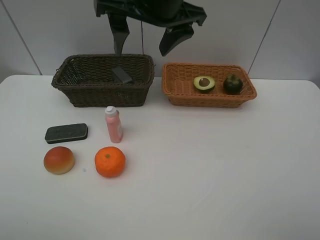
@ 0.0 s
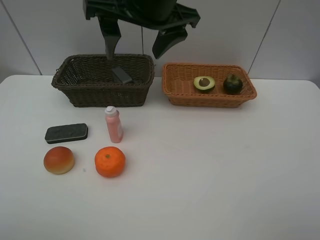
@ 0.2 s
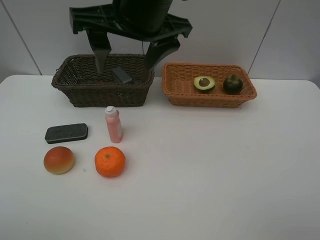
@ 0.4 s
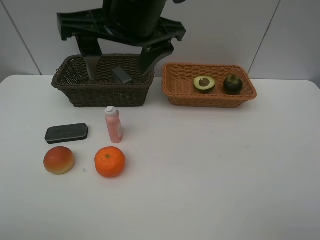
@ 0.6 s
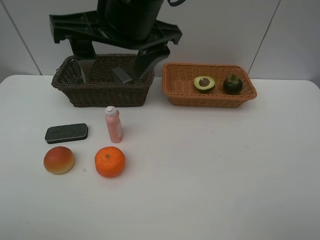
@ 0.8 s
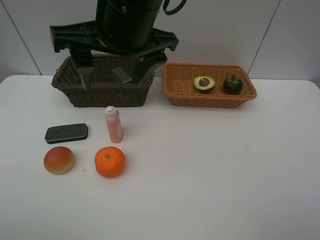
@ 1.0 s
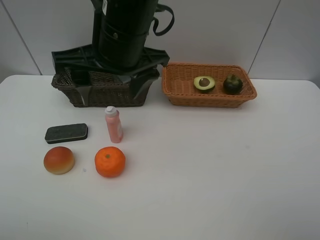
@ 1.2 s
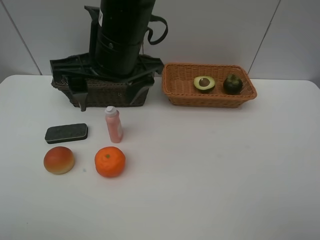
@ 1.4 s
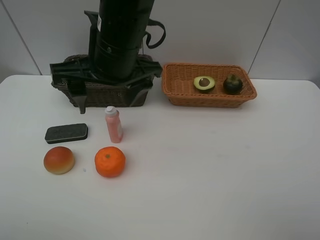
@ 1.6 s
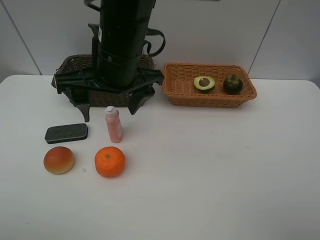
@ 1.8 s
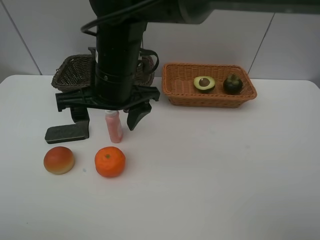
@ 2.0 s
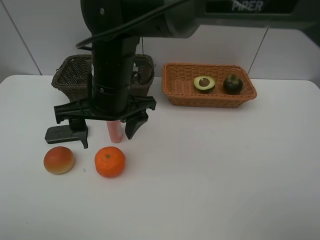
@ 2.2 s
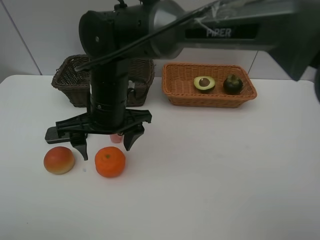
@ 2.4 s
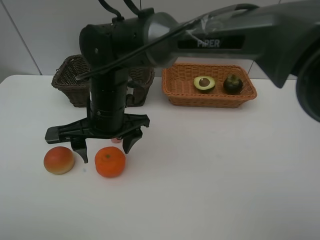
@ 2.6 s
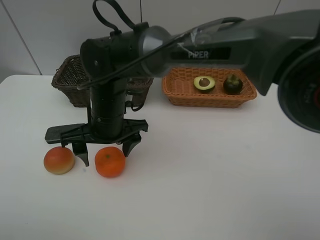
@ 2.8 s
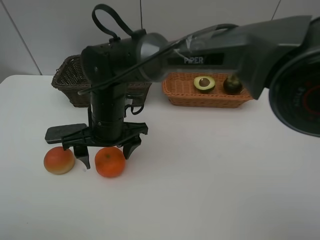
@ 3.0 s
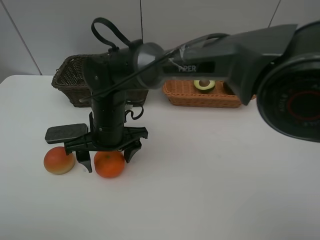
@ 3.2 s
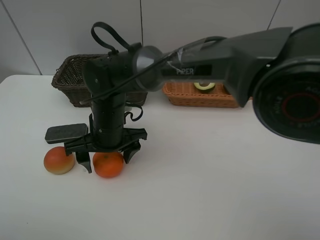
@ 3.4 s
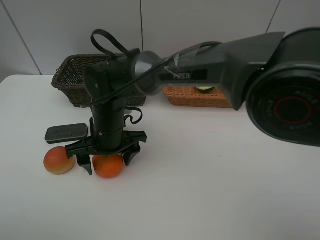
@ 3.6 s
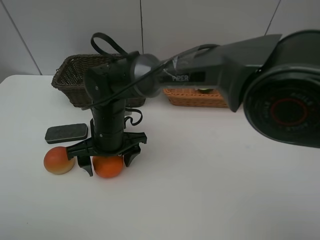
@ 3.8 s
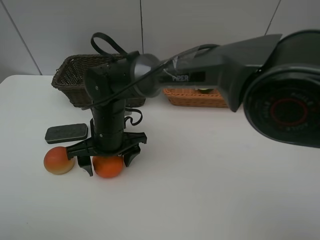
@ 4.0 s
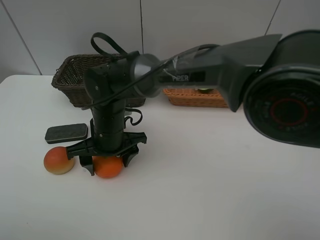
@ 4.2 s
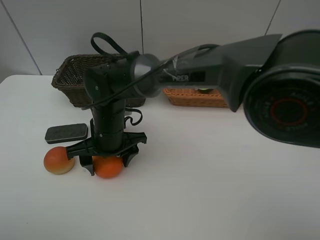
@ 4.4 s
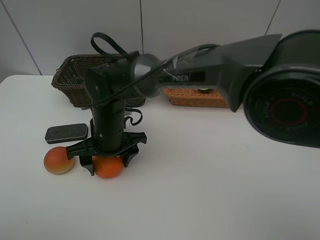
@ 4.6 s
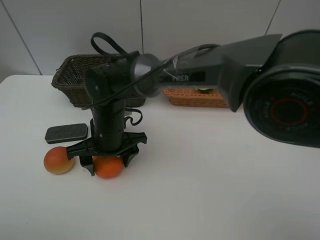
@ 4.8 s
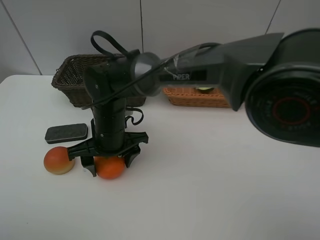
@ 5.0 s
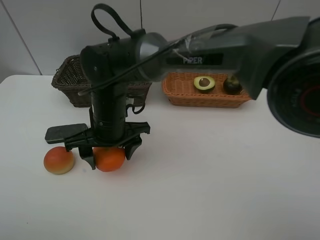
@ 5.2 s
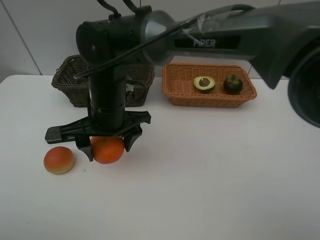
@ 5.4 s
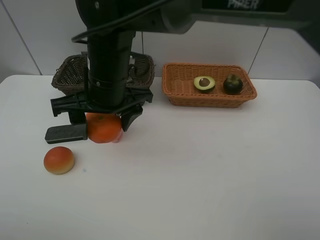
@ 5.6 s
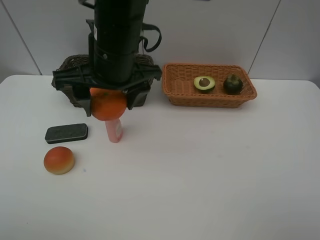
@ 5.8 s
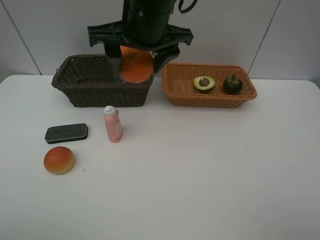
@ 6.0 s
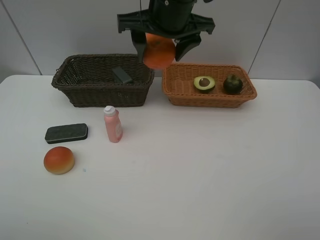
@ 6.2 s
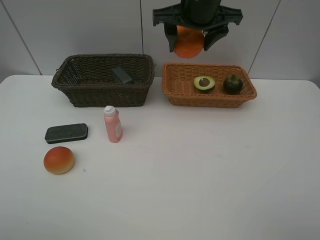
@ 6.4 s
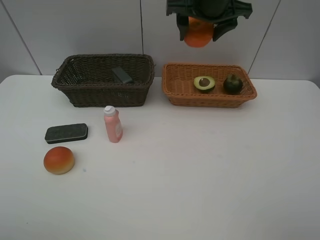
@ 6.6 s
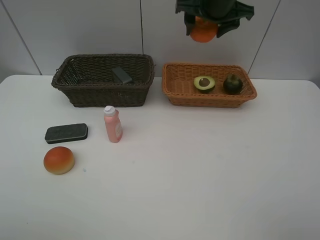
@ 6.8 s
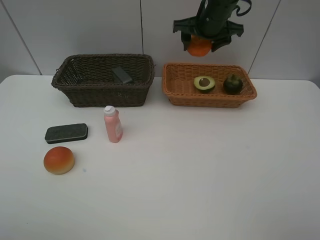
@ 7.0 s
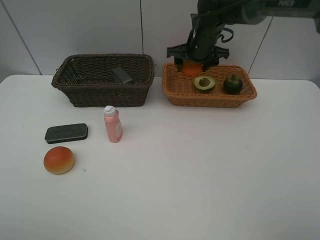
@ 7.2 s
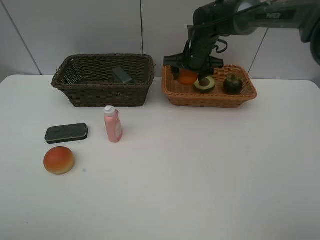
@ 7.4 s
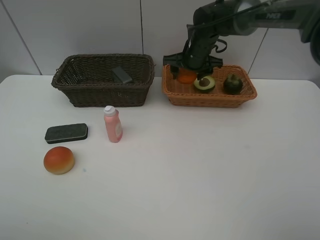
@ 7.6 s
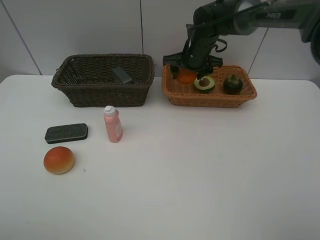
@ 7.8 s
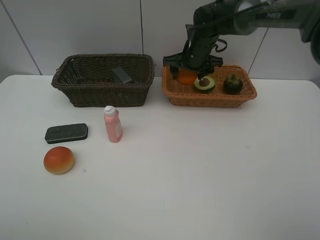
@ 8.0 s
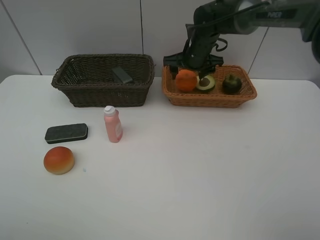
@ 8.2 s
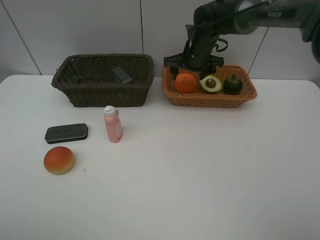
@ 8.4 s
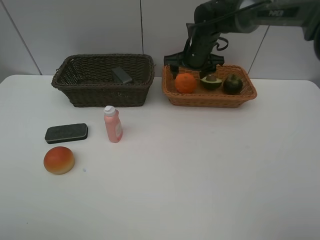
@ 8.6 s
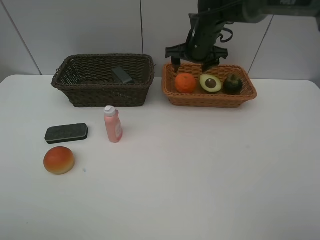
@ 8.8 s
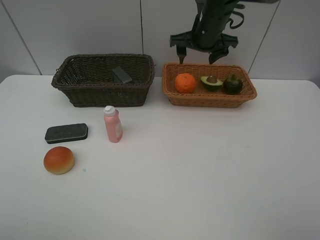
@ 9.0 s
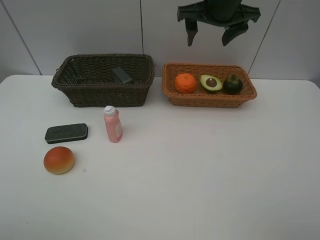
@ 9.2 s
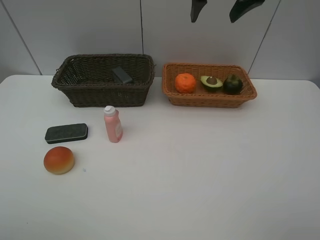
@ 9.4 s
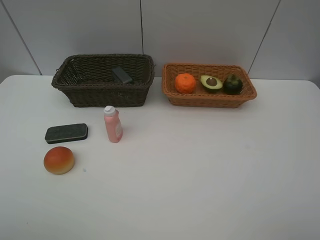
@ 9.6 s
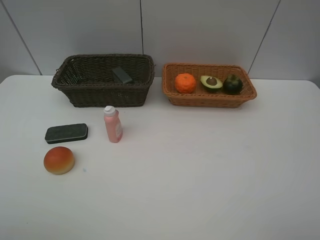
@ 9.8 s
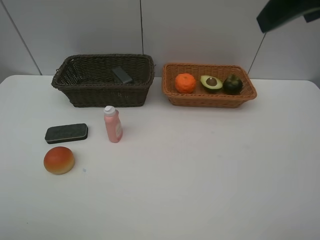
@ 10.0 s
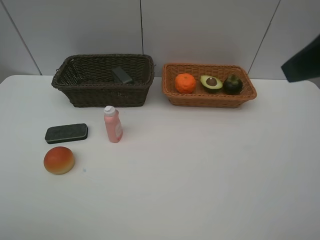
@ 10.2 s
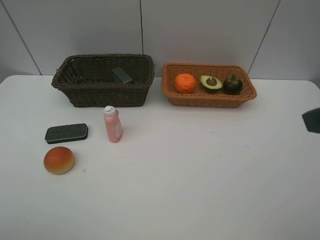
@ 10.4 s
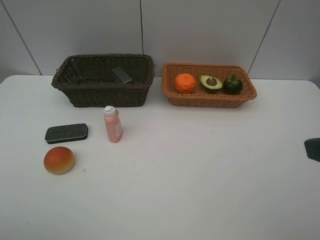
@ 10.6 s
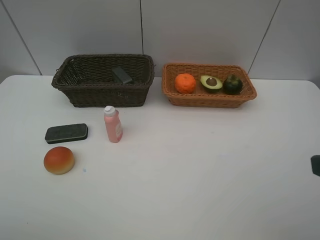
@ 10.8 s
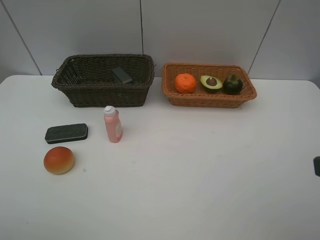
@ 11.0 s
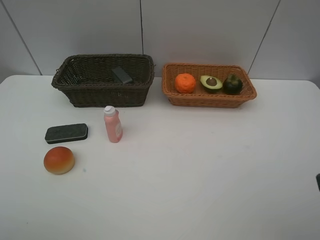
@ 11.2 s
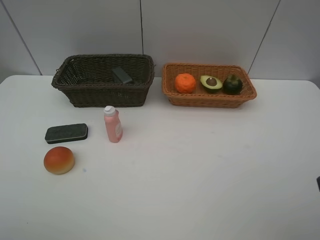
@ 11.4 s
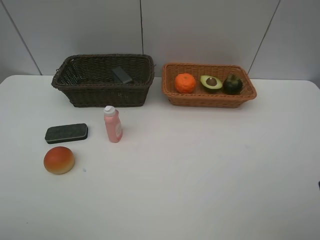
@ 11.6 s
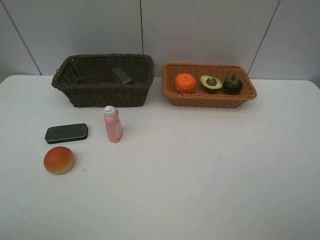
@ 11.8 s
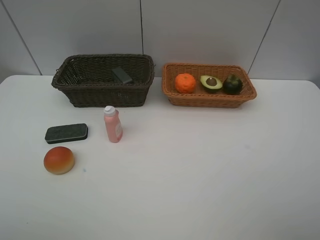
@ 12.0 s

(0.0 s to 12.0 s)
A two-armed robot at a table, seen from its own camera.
Task of the whole recording: Place multiple objects separately in different baskets.
Step, 0.0 s - 5.2 s: Pick up the orange with right gripper.
Step, 5.4 s - 8.2 s: Place the orange in the light basket with right gripper.
0.0 s - 1.6 s: The right gripper moves downward and to the left, about 10 cm.
1.6 s - 3.0 s: The right gripper heads downward, covering roughly 15 cm.
3.0 s - 4.4 s: The grippers make only small movements.
4.4 s - 6.0 s: The right gripper shifts some 25 cm upward and to the right.
6.0 s - 7.6 s: The right gripper travels forward, downward and to the right by roughly 25 cm.
7.6 s - 9.0 s: The right gripper shifts approximately 10 cm upward.
9.0 s - 10.4 s: The right gripper shifts about 40 cm backward and to the right.

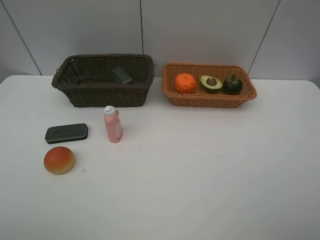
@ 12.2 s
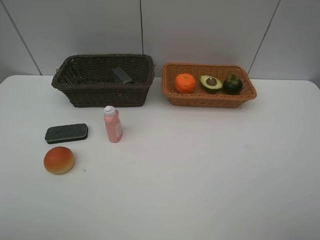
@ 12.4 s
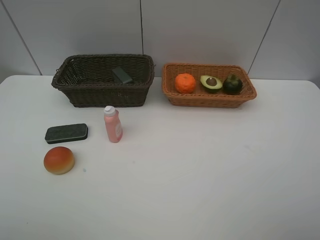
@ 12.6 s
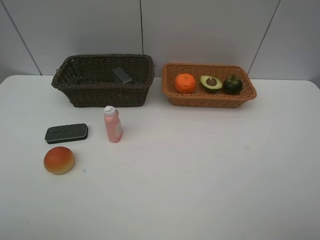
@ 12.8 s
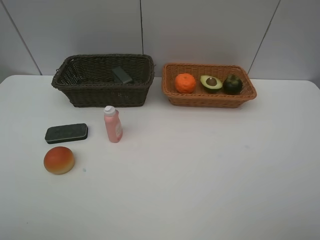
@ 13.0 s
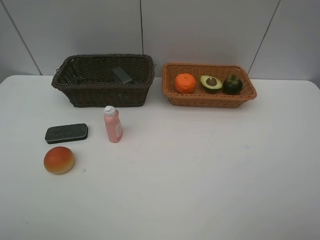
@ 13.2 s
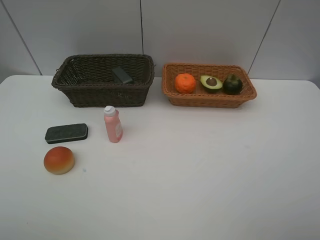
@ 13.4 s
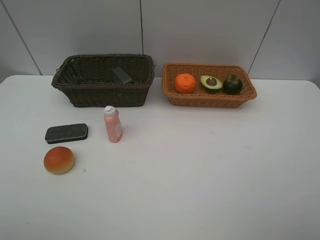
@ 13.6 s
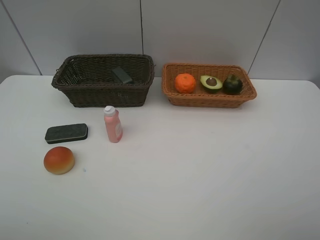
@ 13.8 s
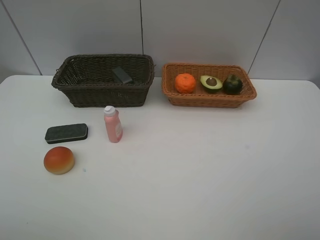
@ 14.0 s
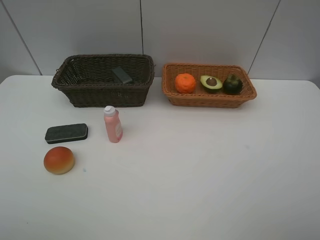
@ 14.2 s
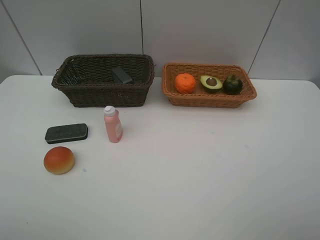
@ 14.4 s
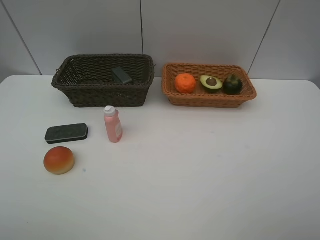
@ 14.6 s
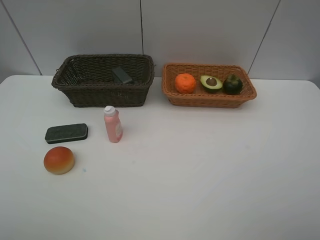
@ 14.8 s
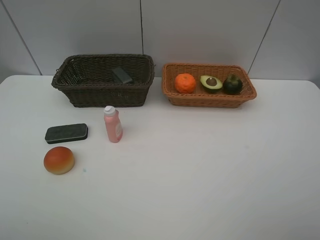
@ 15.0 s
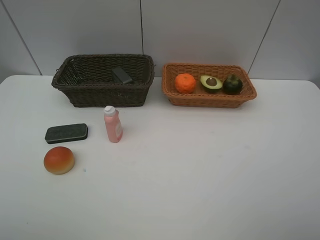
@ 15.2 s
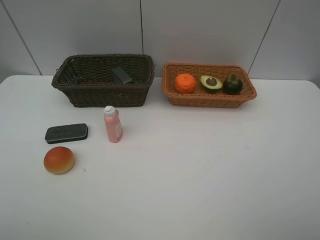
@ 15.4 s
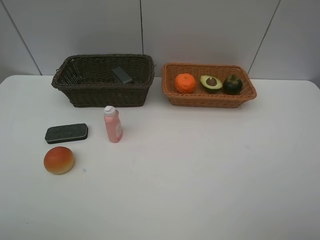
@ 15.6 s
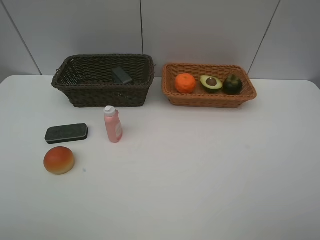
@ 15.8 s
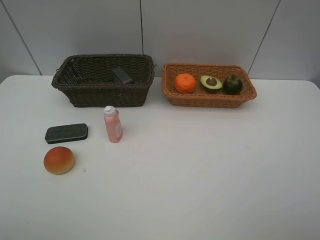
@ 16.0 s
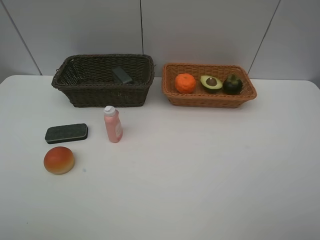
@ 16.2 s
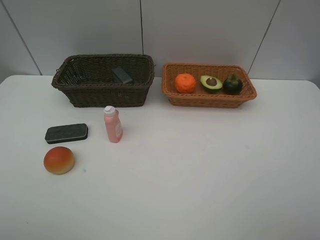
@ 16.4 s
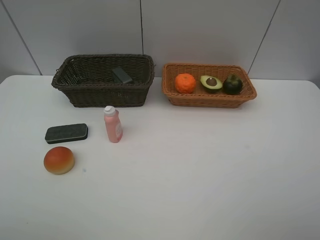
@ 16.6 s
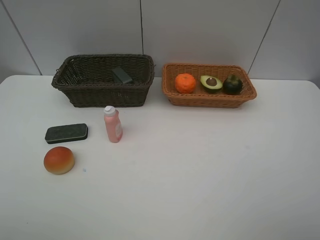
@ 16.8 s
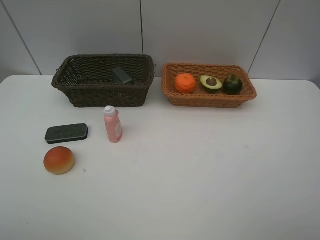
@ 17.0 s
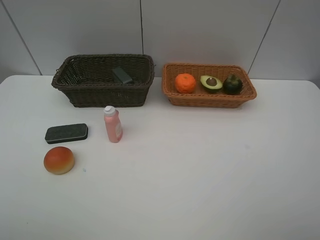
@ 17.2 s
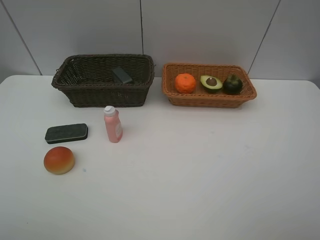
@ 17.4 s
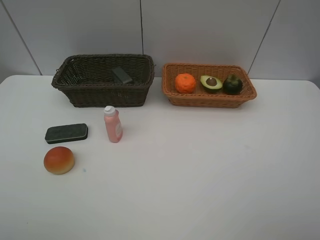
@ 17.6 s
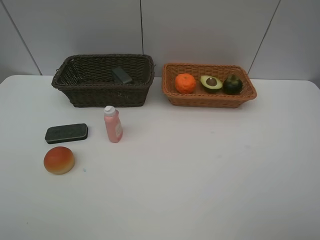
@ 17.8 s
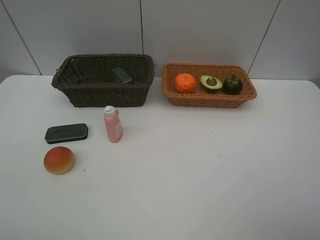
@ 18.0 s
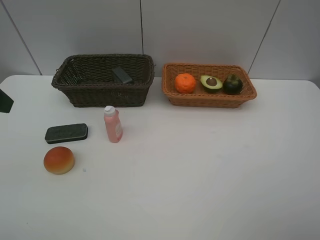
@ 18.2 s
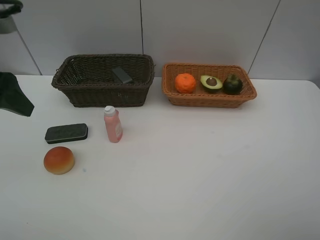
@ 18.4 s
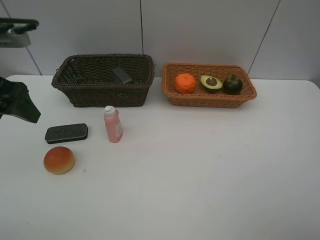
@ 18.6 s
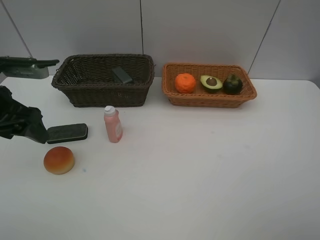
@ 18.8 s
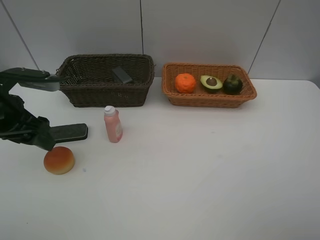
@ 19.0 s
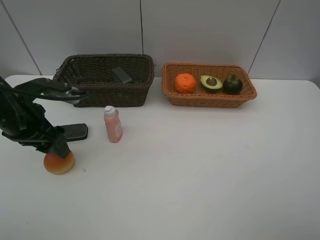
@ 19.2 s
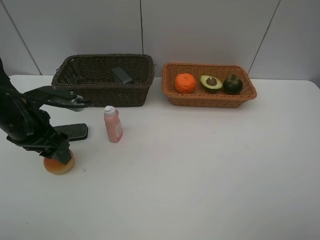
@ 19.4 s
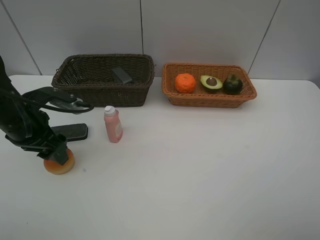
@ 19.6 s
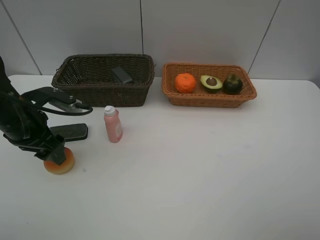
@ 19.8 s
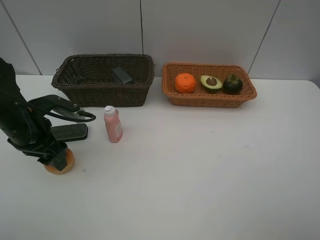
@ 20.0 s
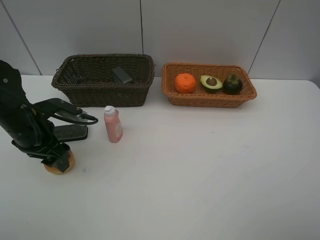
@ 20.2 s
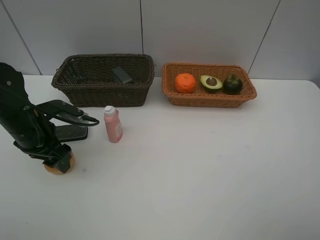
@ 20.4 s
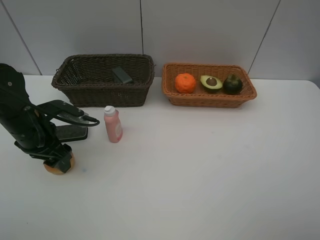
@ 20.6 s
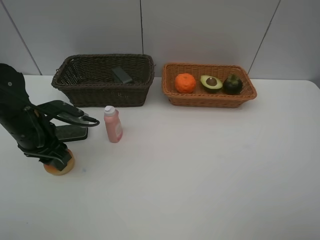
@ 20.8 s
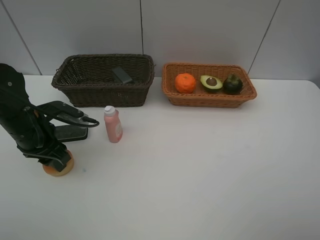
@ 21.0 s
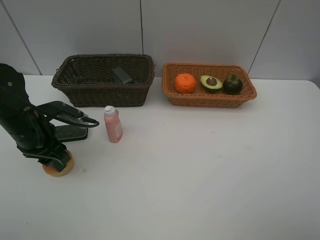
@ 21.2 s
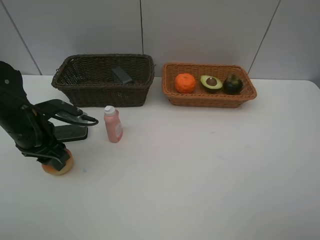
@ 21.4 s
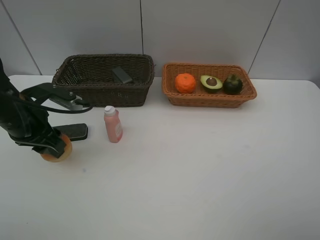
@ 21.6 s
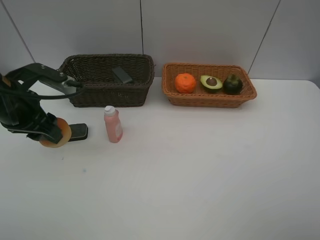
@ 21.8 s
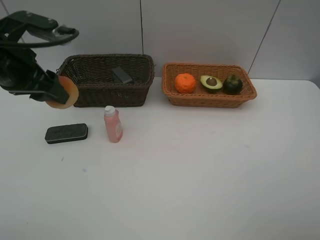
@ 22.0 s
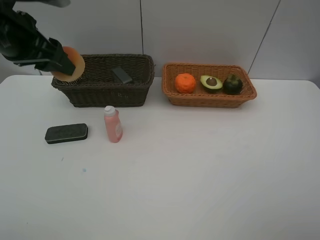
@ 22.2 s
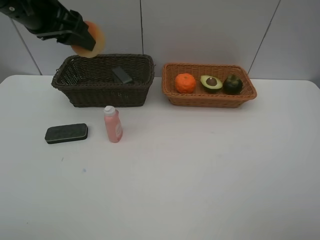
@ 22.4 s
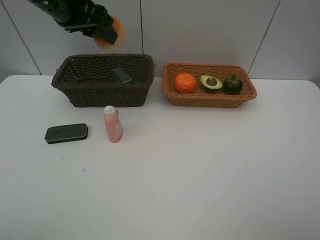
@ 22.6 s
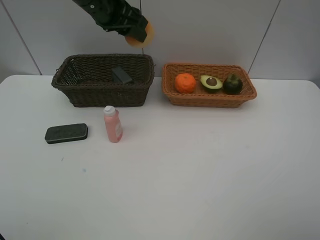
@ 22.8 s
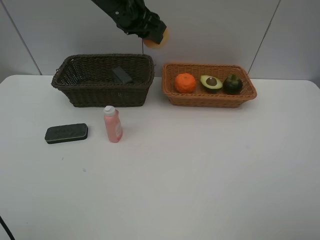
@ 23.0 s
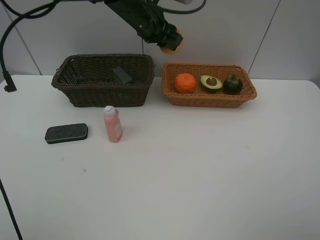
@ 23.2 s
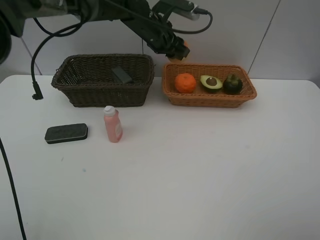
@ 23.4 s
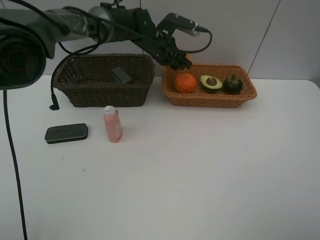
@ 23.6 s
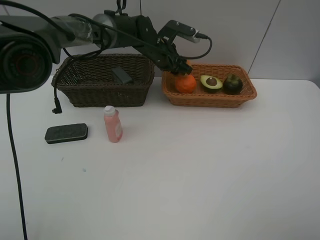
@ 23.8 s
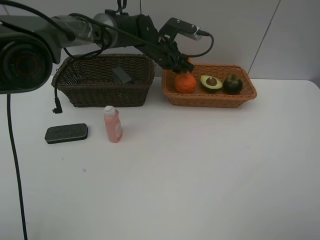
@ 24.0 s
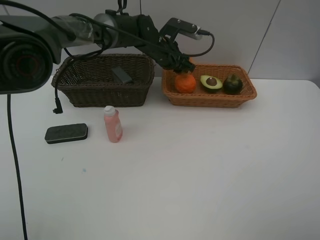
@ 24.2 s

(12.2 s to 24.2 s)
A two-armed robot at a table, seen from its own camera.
Task of the whole recording: Place multiple objects separately in different baskets.
Step, 12.2 s - 21.4 s: Pick up egg yolk pastry with left gripper.
13.8 s - 16.6 s: The two grippers keep their place.
18.2 s - 19.8 s: The left gripper moves downward and forward, approximately 15 cm.
19.8 s - 21.2 s: The left gripper closes.
21.2 s - 22.6 s: The left gripper travels upward, to the right and forward by about 25 cm.
22.6 s - 24.2 s: The left gripper heads downward, to the right and forward, covering approximately 25 cm.
